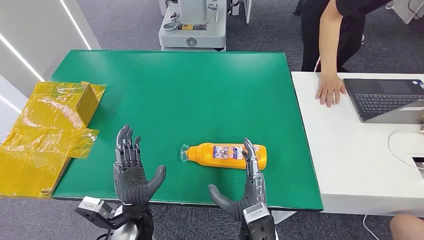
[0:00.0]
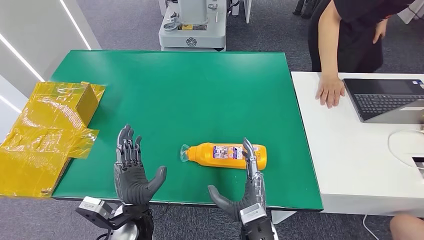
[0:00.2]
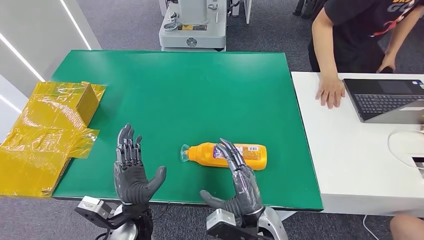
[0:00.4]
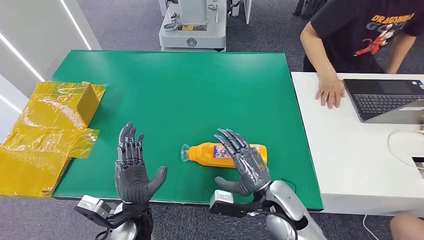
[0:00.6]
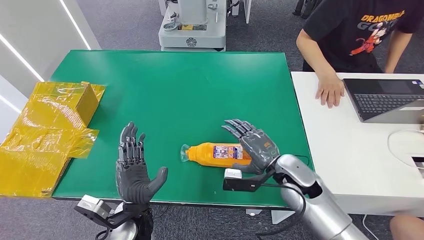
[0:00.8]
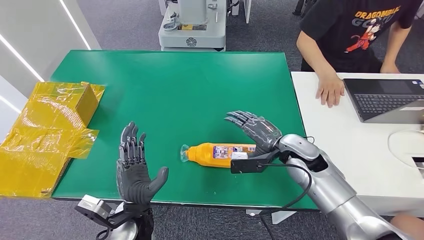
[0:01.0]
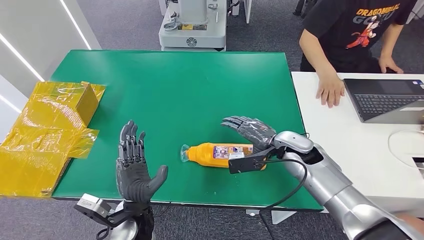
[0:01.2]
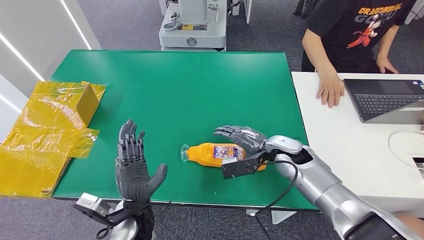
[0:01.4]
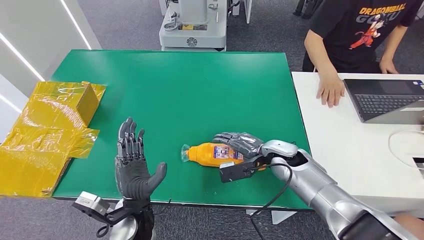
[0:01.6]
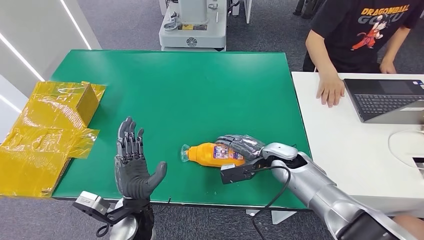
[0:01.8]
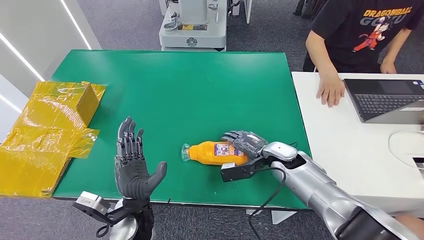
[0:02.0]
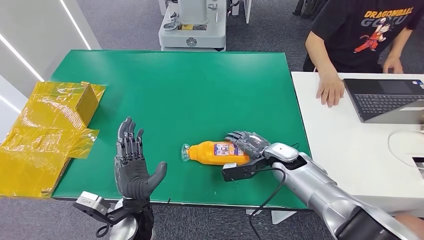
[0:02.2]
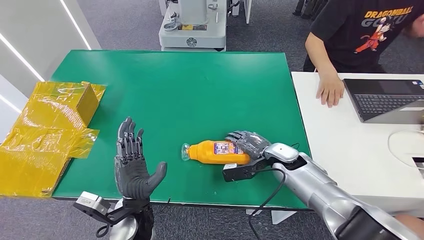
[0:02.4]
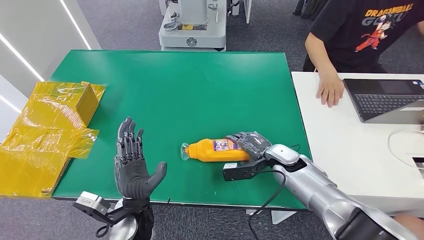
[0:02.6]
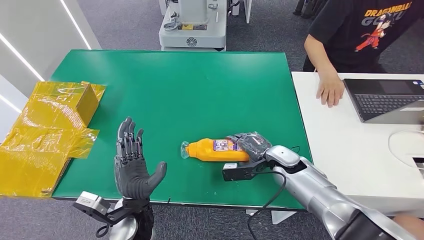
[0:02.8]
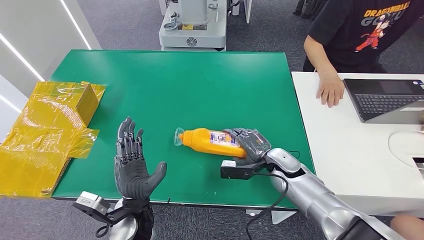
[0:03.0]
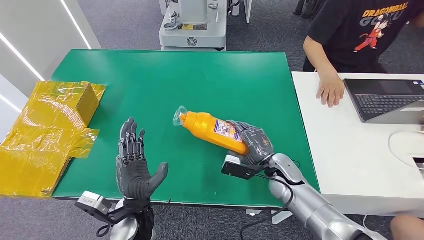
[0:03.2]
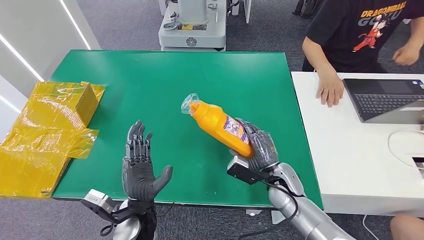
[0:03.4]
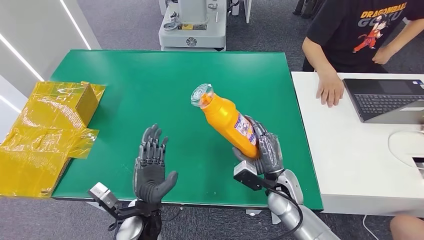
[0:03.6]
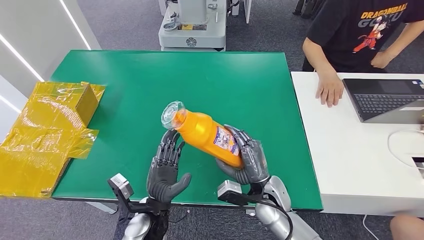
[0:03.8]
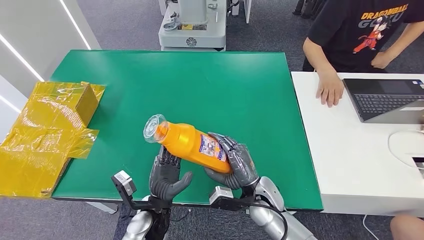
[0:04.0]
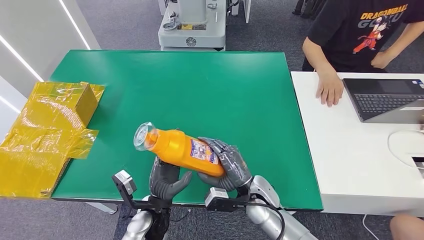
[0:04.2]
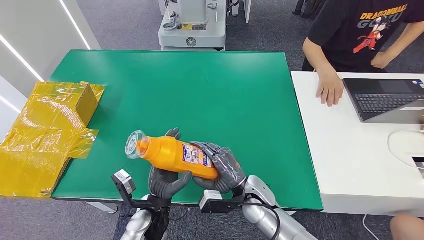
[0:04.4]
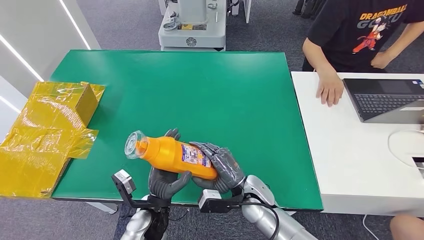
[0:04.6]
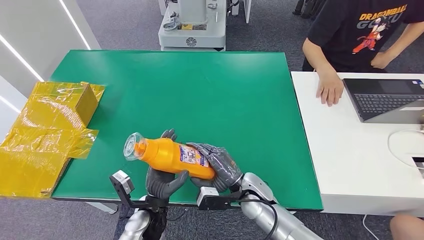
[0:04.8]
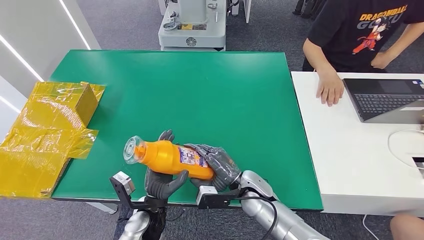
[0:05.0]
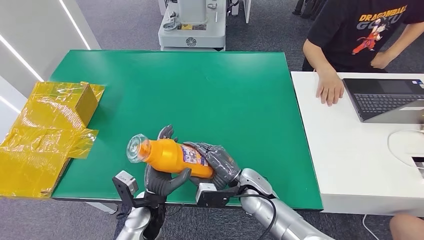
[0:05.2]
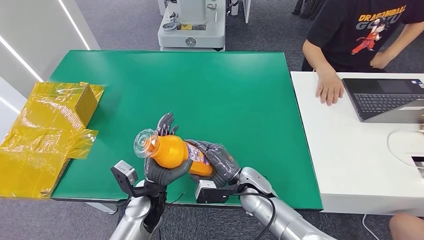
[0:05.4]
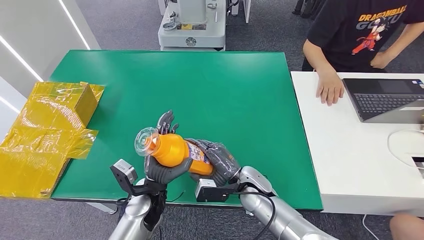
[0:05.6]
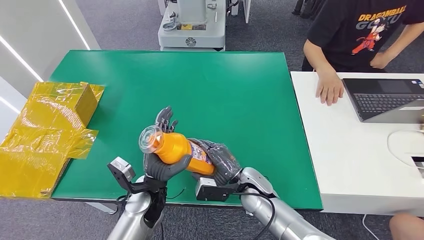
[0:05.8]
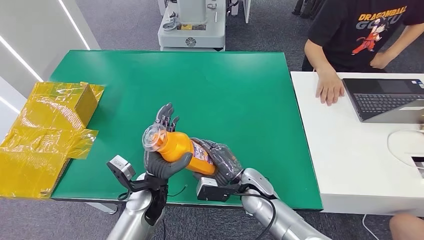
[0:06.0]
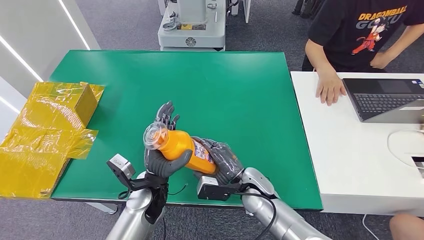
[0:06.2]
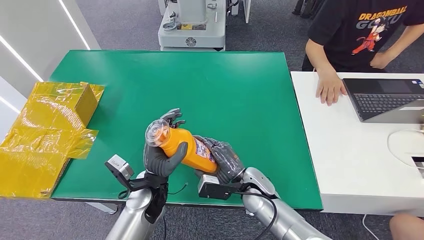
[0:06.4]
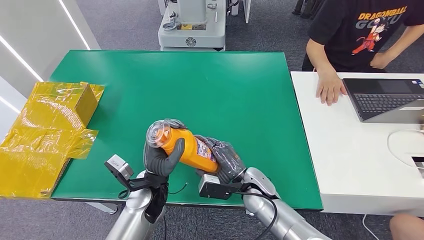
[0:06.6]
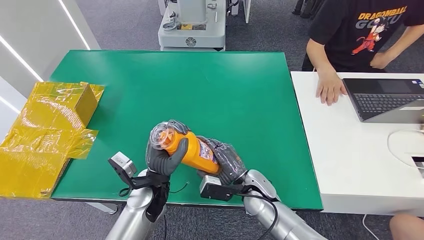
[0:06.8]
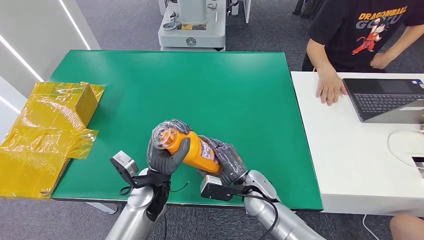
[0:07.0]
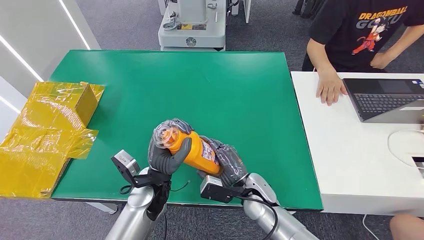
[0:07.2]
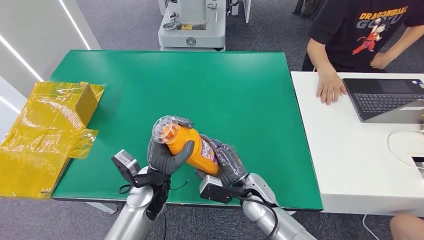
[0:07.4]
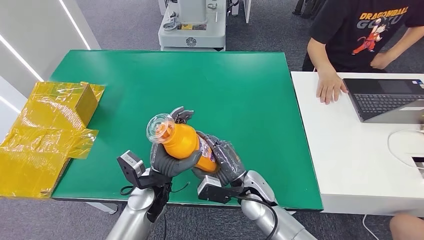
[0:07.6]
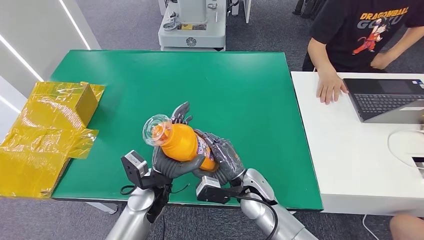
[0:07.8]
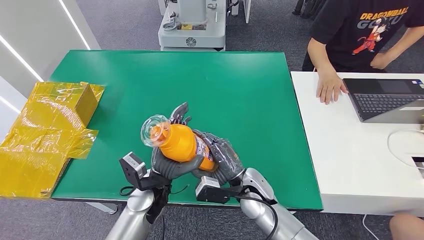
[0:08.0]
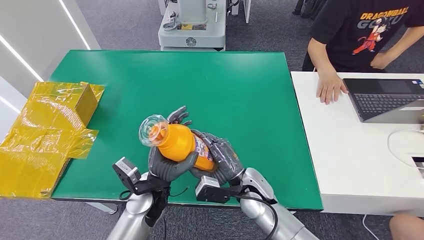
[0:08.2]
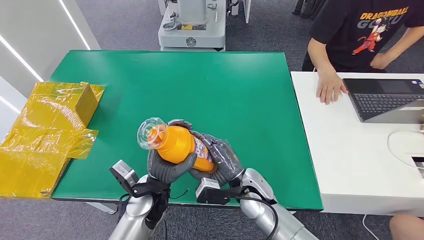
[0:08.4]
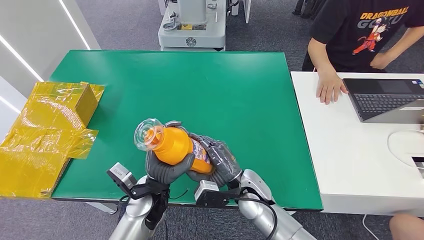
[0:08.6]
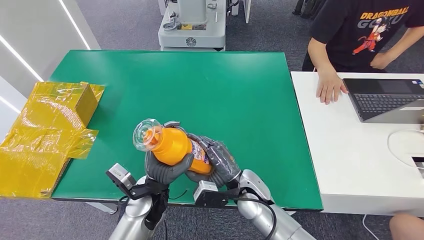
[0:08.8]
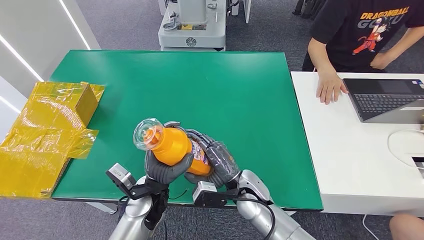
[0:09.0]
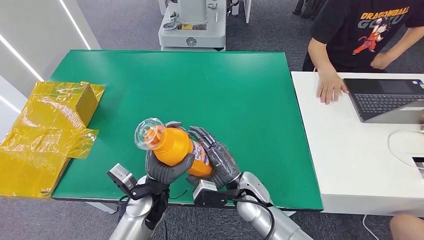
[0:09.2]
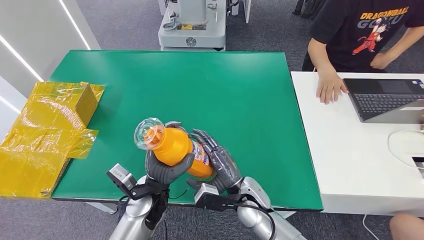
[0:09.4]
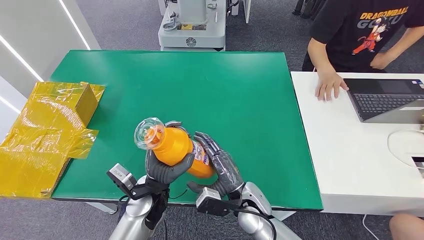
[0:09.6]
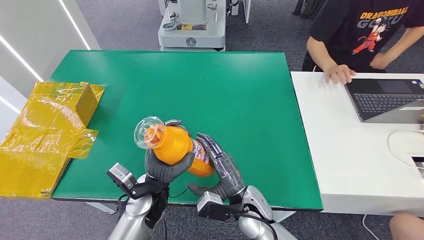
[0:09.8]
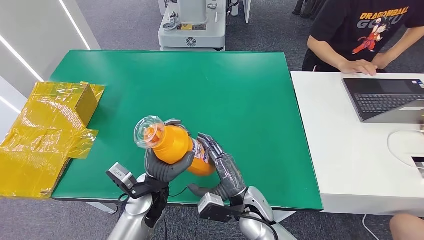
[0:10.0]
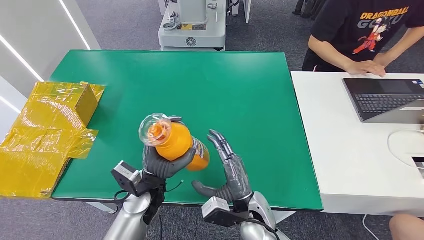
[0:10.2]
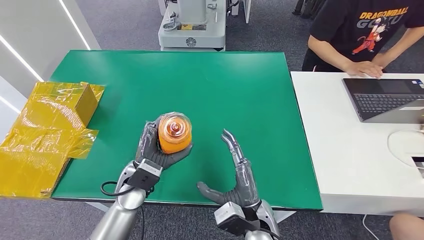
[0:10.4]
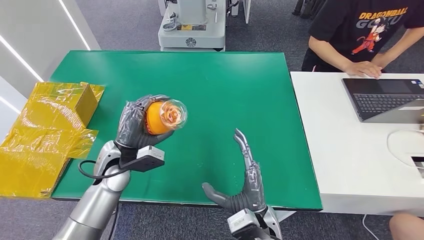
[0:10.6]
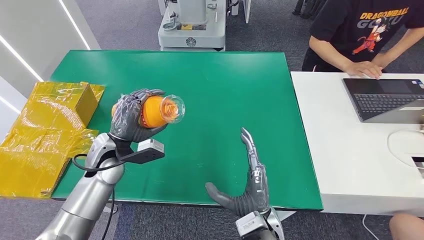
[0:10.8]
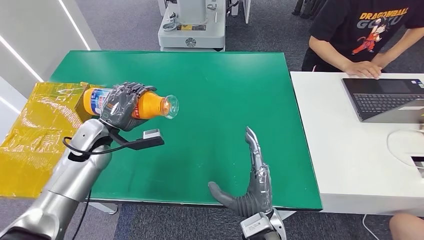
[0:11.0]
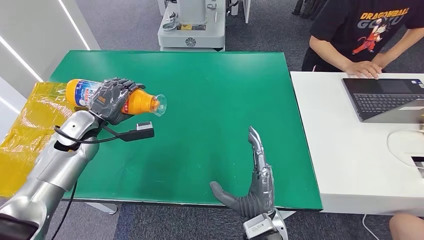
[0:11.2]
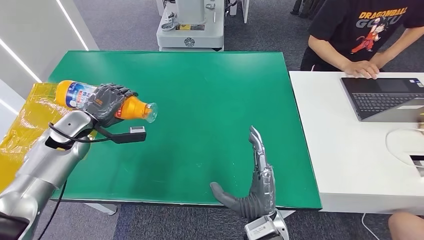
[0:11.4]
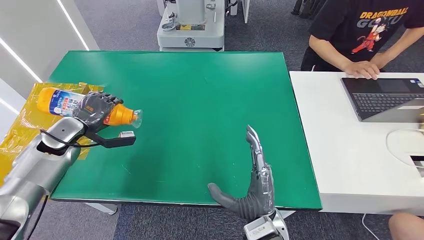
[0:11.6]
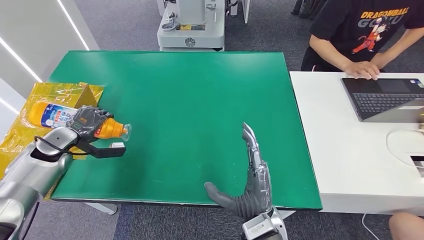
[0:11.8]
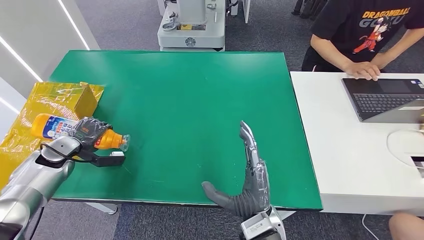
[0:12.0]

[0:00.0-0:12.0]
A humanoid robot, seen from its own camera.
Step, 0:00.0 to 0:04.0: Pick up the bottle from the table.
0:03.0 to 0:04.4: The right hand is displaced to the left and backward by roughly 10 cm, while the left hand changes place by roughly 5 cm.
0:04.4 to 0:06.0: The left hand ends up roughly 5 cm from where it was.
0:06.0 to 0:09.0: The hands stay close to where they were, moving slightly.
0:09.0 to 0:10.4: The right hand goes approximately 10 cm backward. Meanwhile the left hand moves approximately 5 cm.
0:10.4 to 0:12.0: The right hand ends up approximately 5 cm from where it was; the left hand moves to the left, some 30 cm.

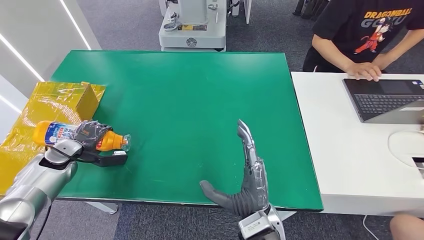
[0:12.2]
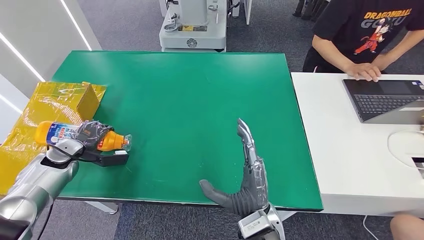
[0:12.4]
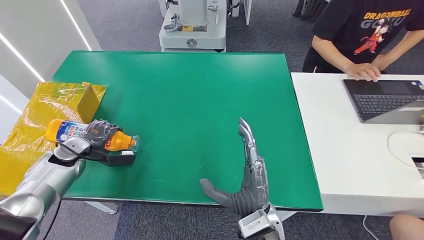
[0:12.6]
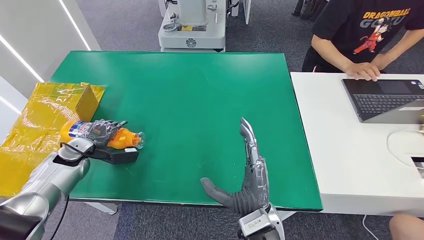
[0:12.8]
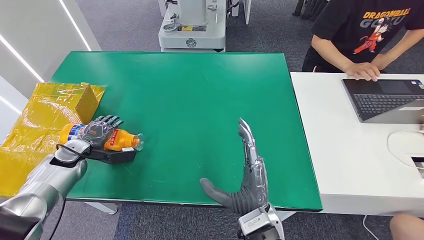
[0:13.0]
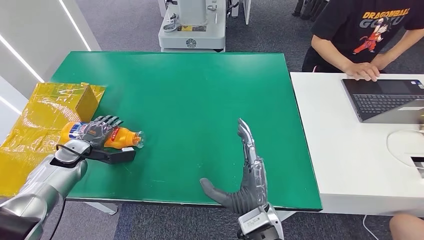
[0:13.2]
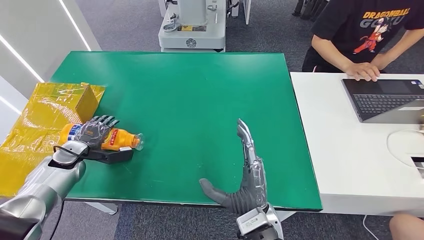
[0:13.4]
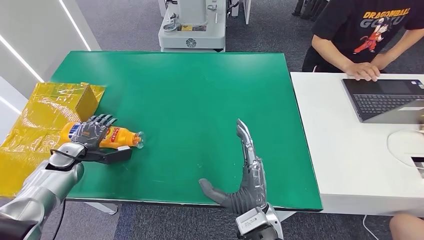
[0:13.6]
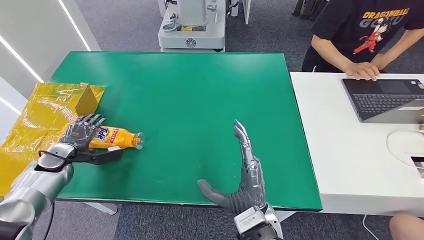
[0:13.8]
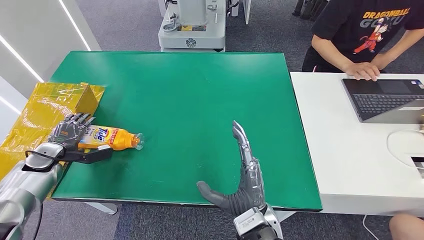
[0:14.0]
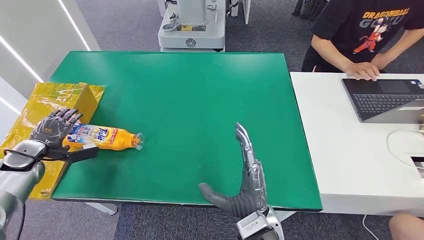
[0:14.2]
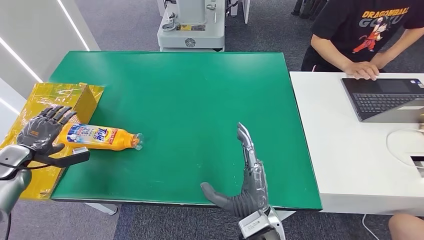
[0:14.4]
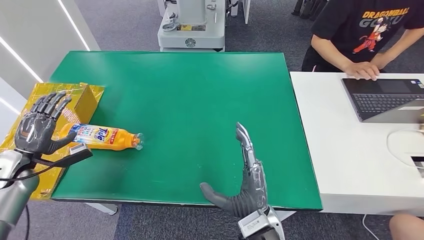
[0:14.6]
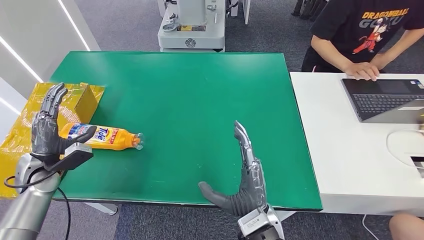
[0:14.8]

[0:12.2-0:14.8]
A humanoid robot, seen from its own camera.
Step, 0:12.2 to 0:14.8: Turn the bottle to the front side.
0:12.2 to 0:13.4: There are only small adjustments of the hands.
0:13.4 to 0:14.8: The left hand is displaced backward by about 5 cm, and goes to the left and returns, some 10 cm each way.

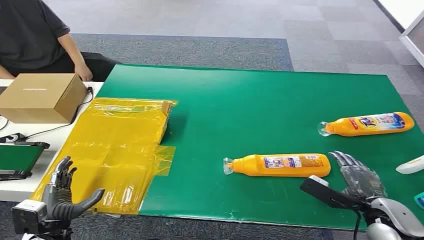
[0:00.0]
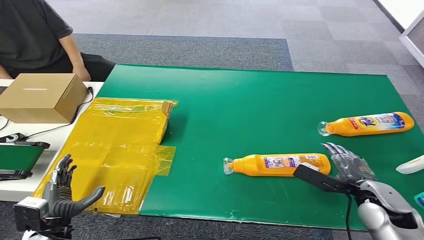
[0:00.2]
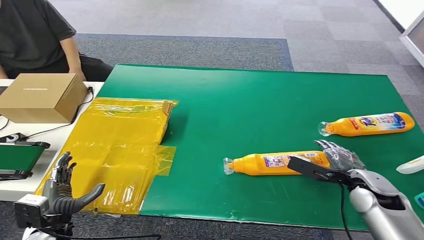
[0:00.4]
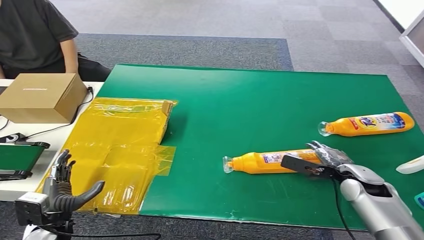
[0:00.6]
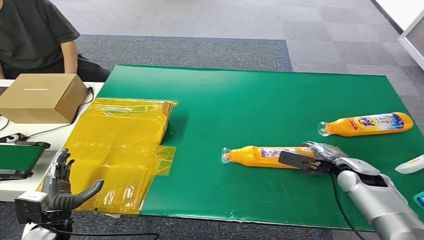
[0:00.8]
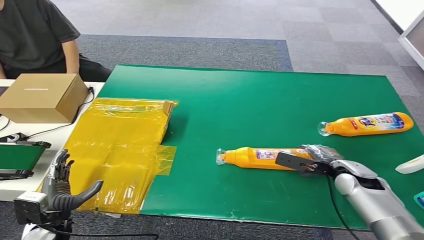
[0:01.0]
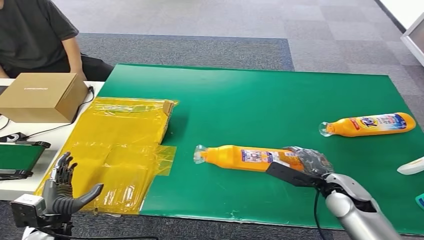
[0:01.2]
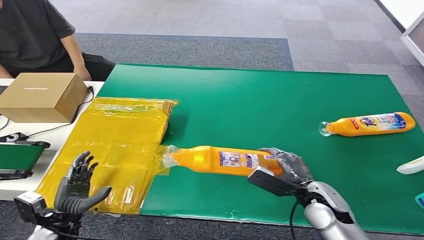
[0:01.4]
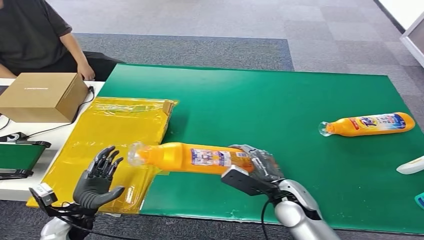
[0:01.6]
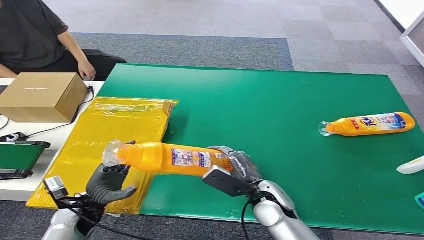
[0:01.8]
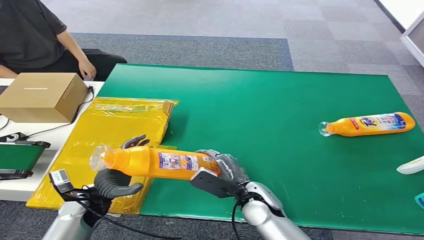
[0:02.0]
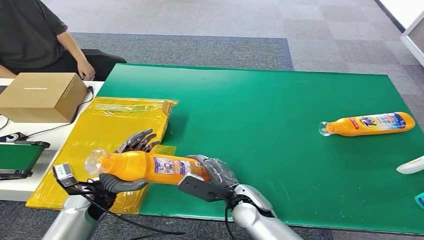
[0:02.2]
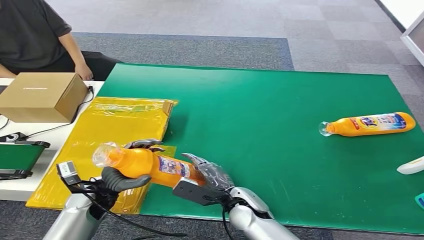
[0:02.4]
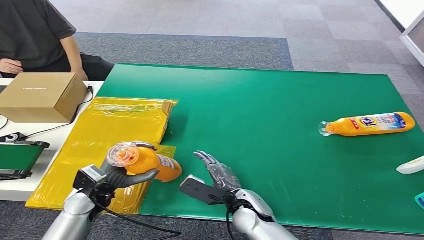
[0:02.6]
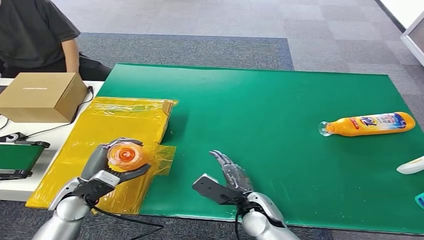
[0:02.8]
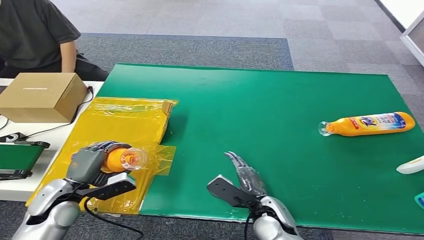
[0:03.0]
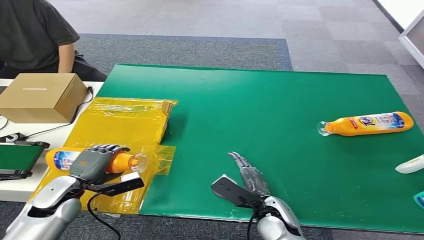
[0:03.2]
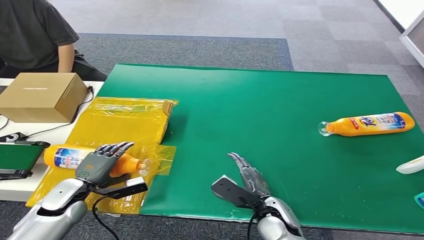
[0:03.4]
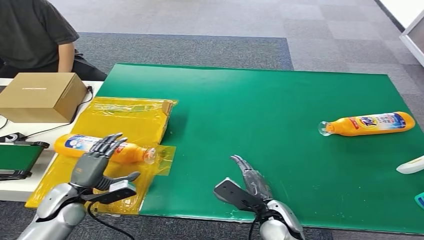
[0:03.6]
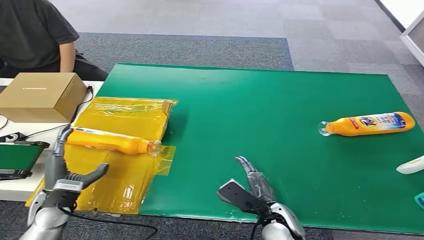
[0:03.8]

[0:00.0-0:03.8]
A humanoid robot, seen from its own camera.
Step, 0:00.0 to 0:01.2: Pick up the bottle from the table.
Step, 0:01.6 to 0:03.6: Turn the bottle to the front side.
0:01.2 to 0:02.6: The right hand is displaced to the left by some 20 cm. The left hand shifts about 10 cm forward and to the right.
0:02.6 to 0:03.8: The left hand goes about 5 cm to the left. The right hand heads to the right, covering some 5 cm.
